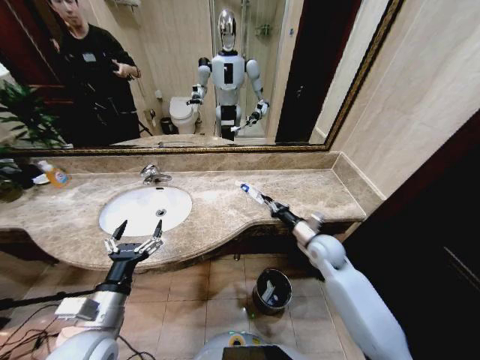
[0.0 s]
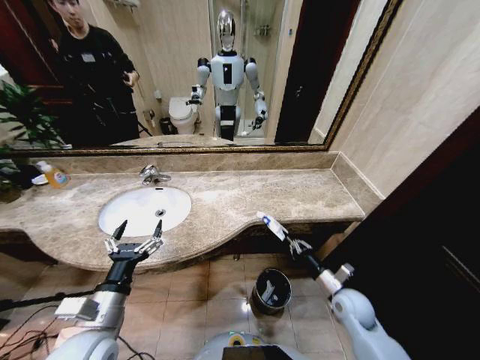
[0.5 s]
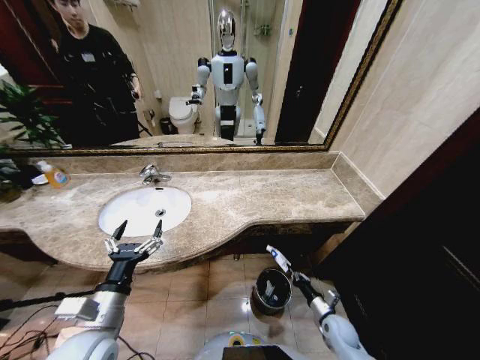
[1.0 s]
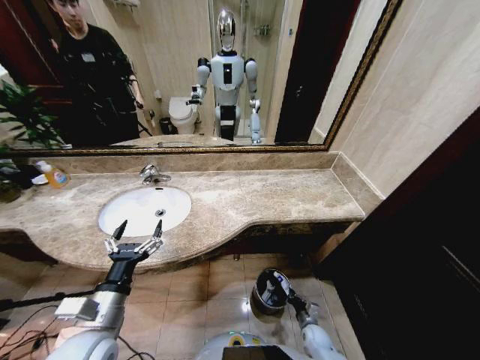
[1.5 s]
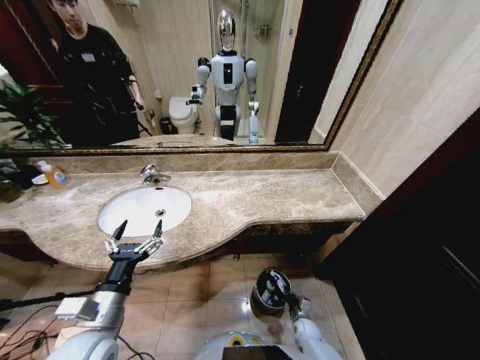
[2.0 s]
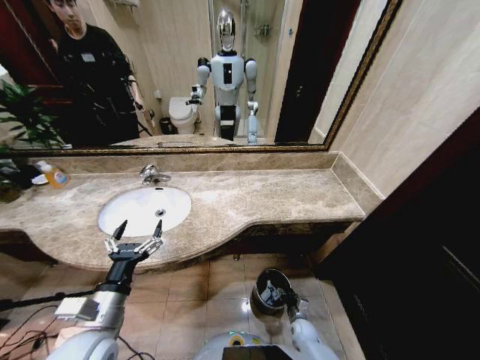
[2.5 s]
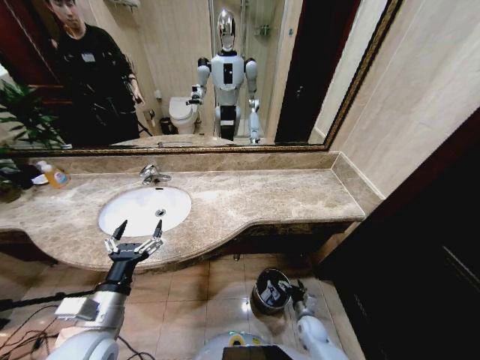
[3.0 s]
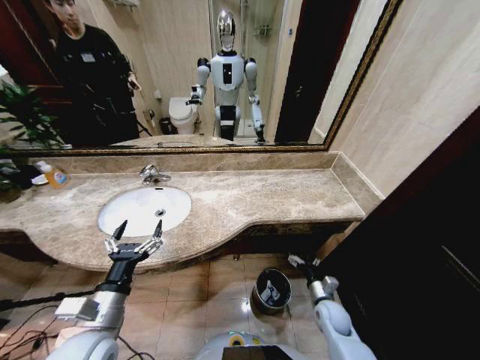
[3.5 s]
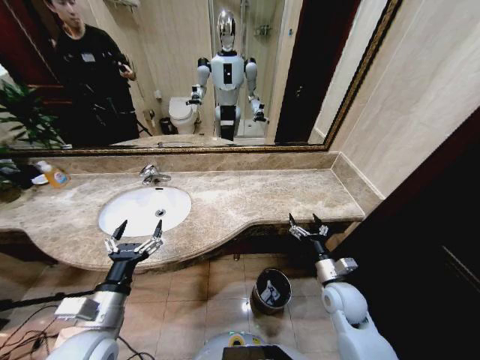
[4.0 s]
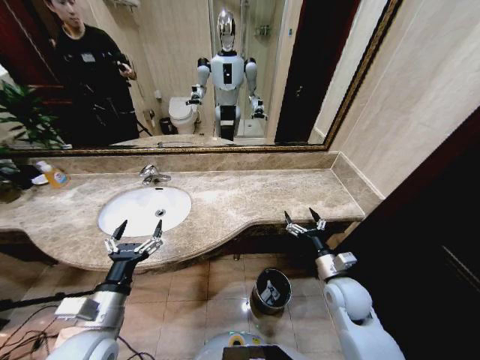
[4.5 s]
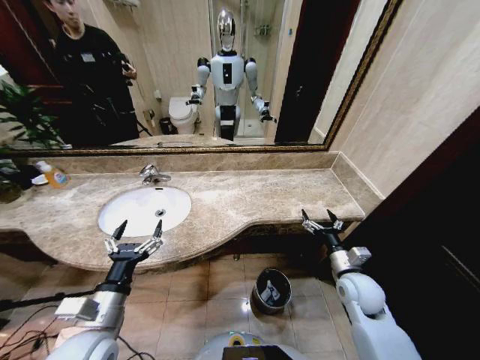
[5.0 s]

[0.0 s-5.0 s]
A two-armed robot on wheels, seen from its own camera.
Task of the whole recording: Pick up the trash from the sink and place it in the trash bin.
0.0 to 2.5 s: The right gripper heads downward, covering about 35 cm, and opens.
2.5 to 5.0 s: The right gripper travels upward by some 35 cm, and opens its fingers.
